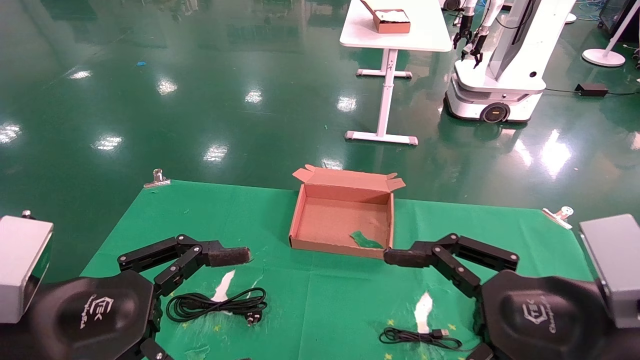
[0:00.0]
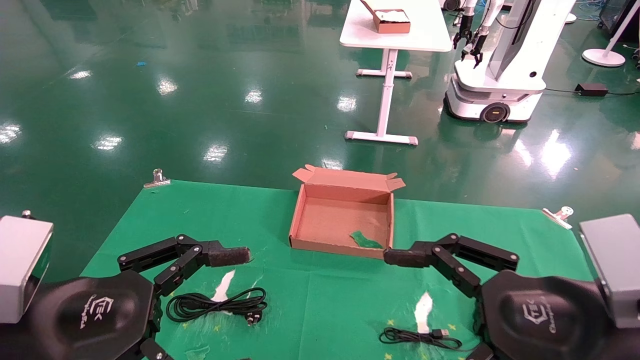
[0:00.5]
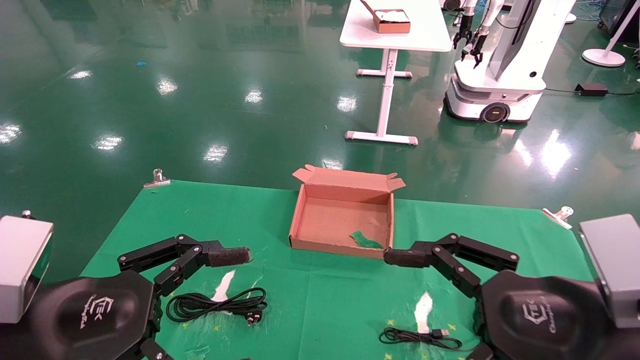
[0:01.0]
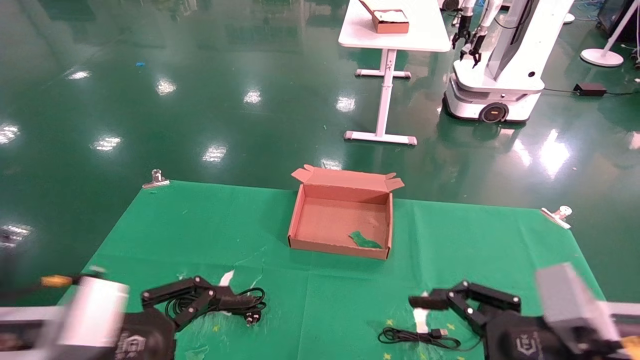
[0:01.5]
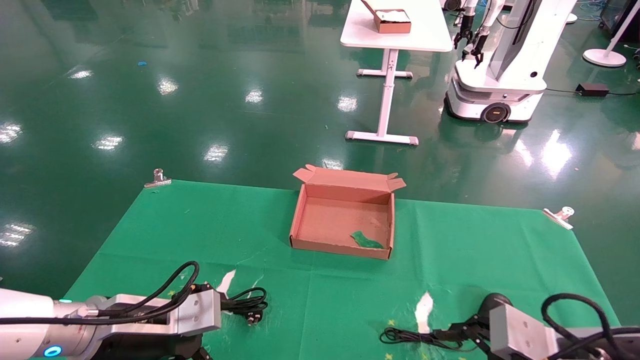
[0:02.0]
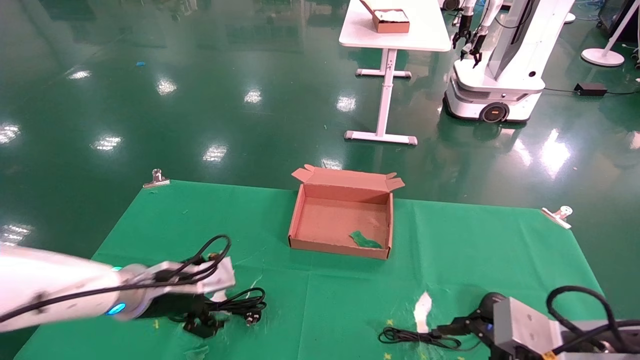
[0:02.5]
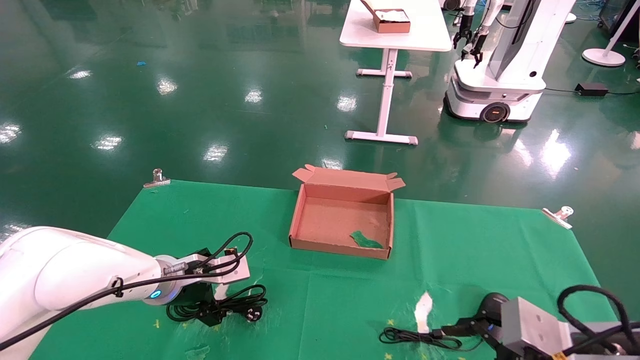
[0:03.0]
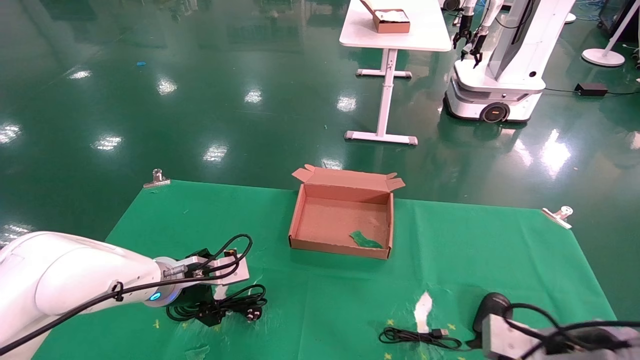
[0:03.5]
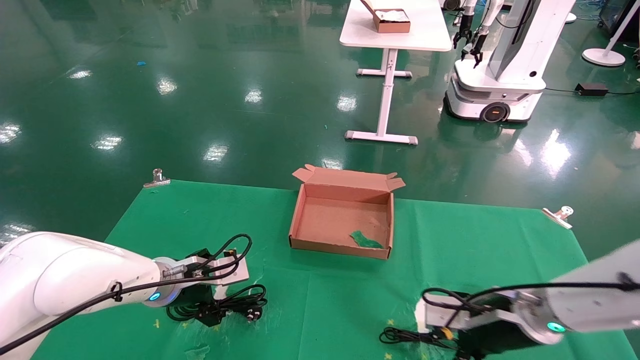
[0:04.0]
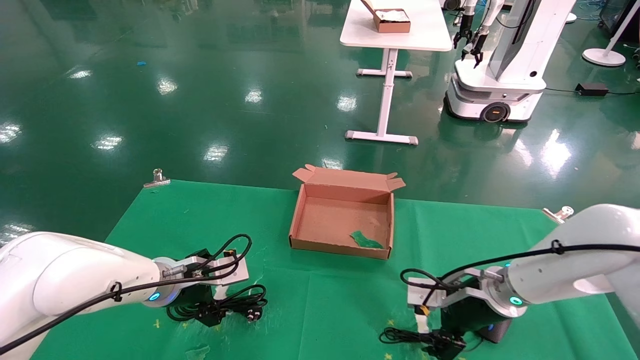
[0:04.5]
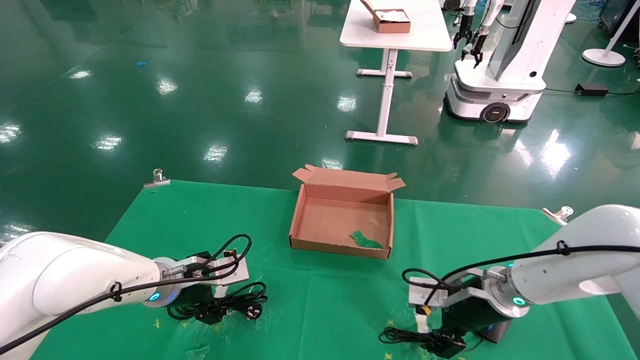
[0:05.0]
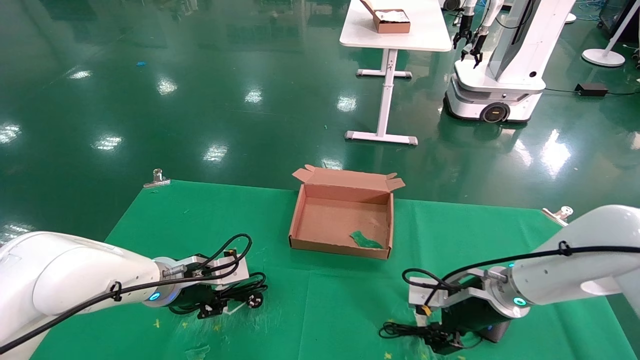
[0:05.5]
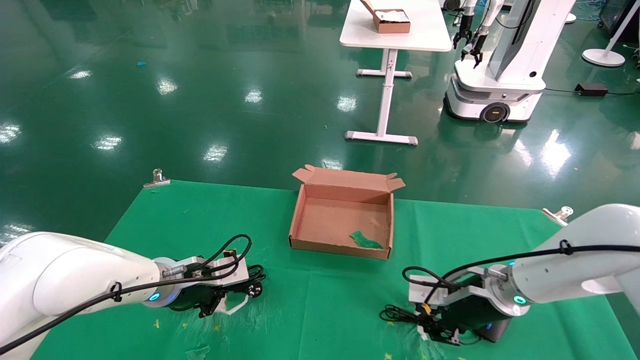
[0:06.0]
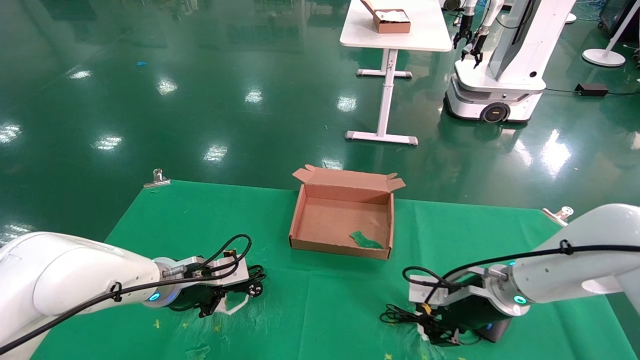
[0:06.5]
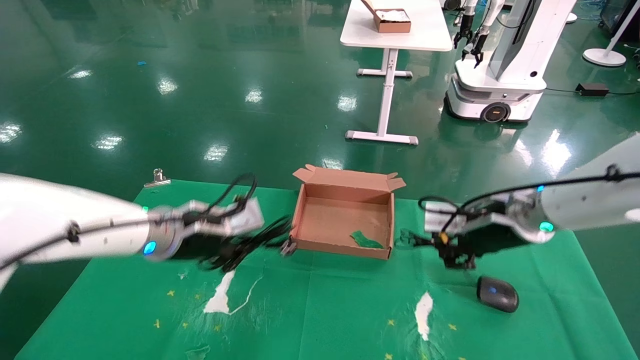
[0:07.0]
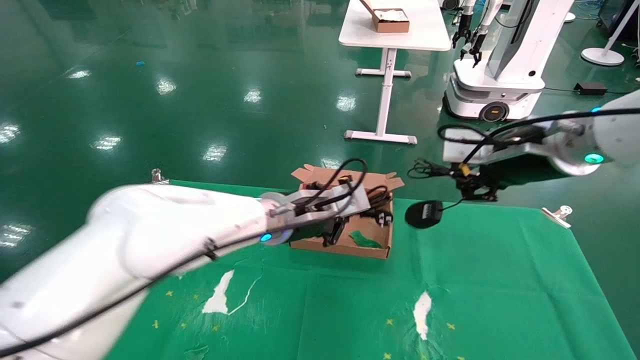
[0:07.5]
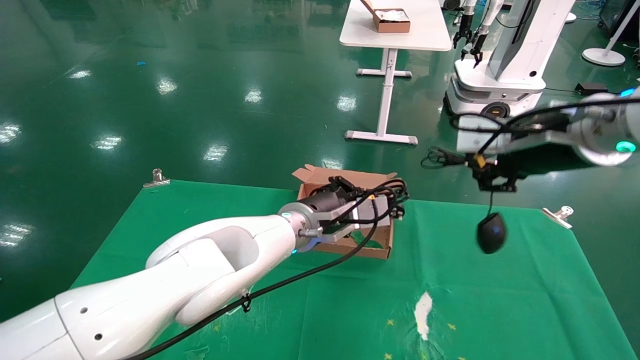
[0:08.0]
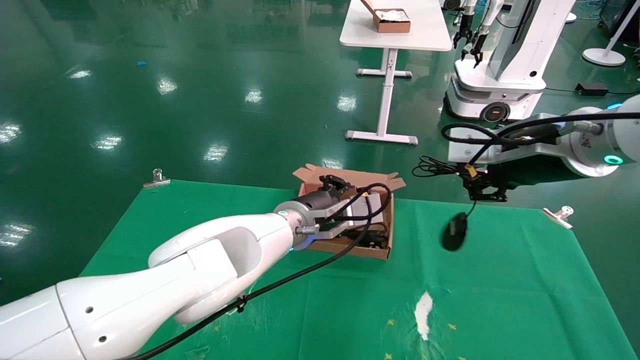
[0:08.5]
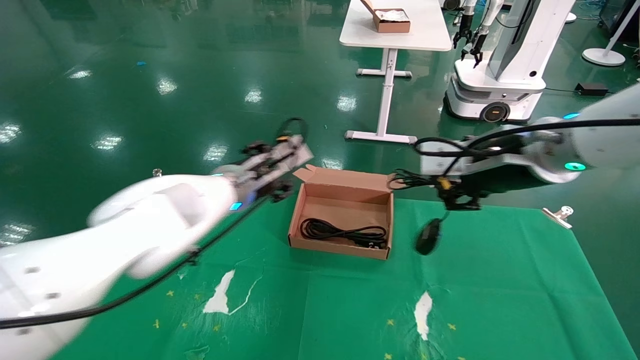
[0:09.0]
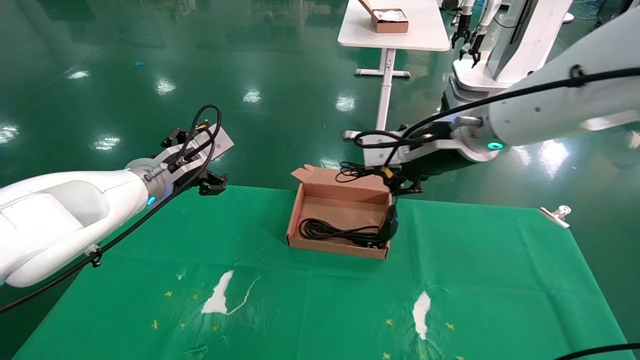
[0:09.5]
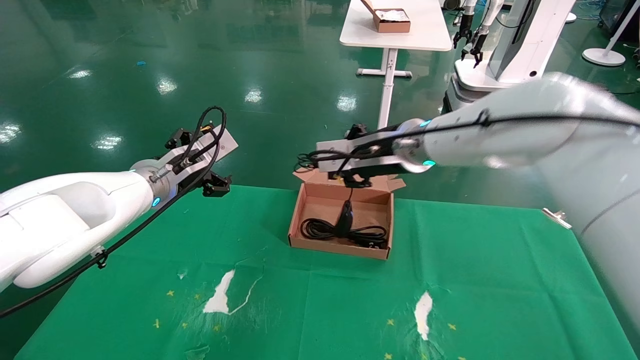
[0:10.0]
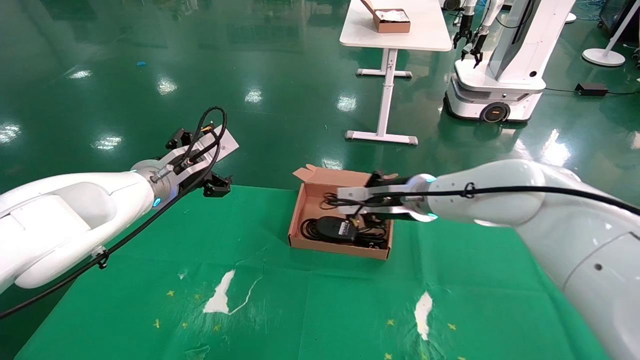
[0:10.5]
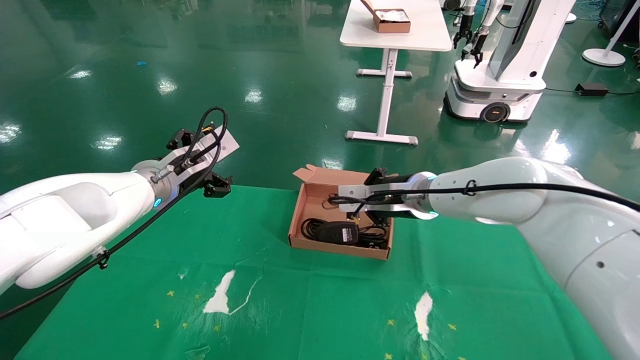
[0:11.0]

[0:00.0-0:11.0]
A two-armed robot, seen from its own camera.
Step, 0:01.5 to 0:06.0: Grab and lift both the mouse and power cord from the accessory packaging area at the same time.
0:00.0 to 0:02.0: The left gripper moves forward and downward, some 15 cm, while the right gripper shifts some 10 cm downward.
0:02.0 to 0:03.5: The left gripper goes some 10 cm forward. Meanwhile the right gripper moves about 5 cm.
0:03.5 to 0:05.5: The left gripper closes; the right gripper goes roughly 15 cm forward and to the left, and closes.
0:05.5 to 0:07.5: The left gripper shifts roughly 20 cm to the right and upward, and closes, while the right gripper moves upward, approximately 20 cm, and closes up.
0:07.5 to 0:09.0: The left gripper shifts approximately 10 cm to the left, and opens.
0:09.0 to 0:11.0: The left gripper heads to the left, covering about 10 cm, and opens up, while the right gripper heads forward, downward and to the left, covering roughly 20 cm.

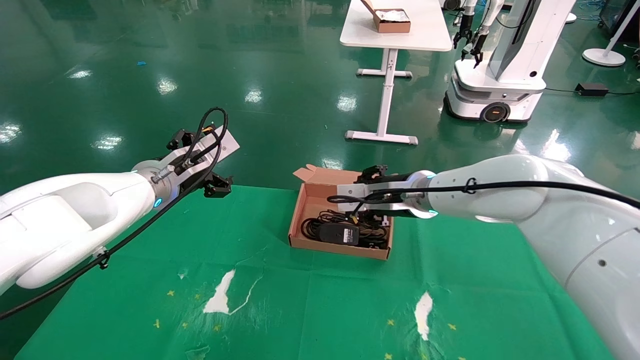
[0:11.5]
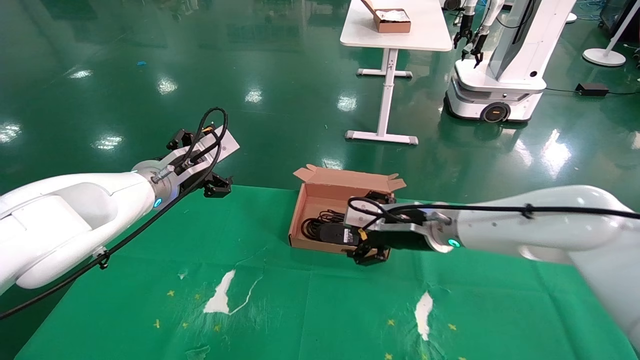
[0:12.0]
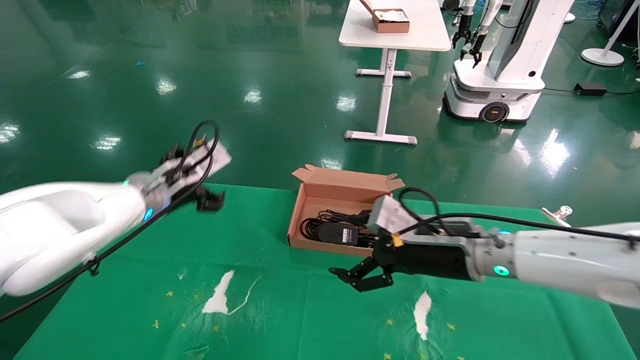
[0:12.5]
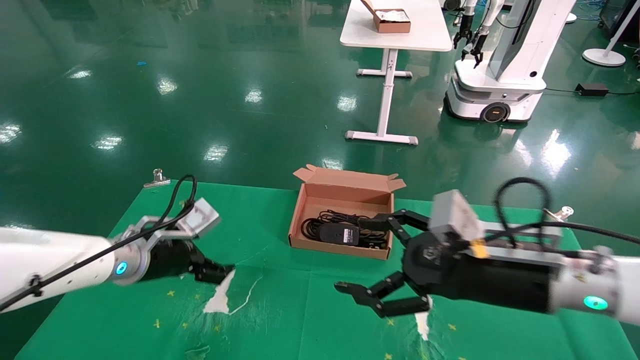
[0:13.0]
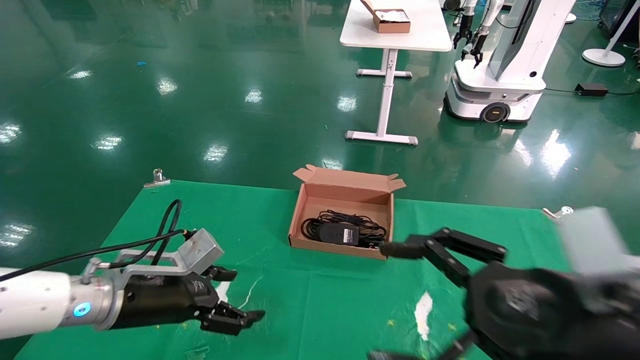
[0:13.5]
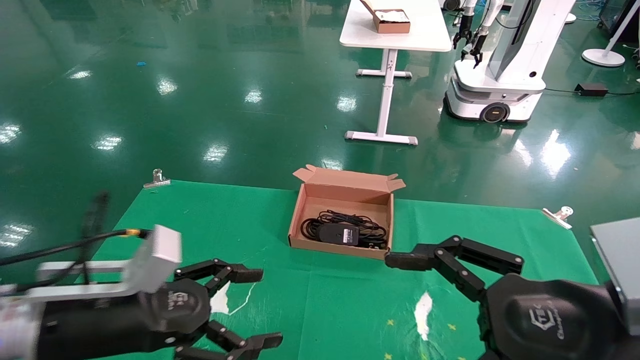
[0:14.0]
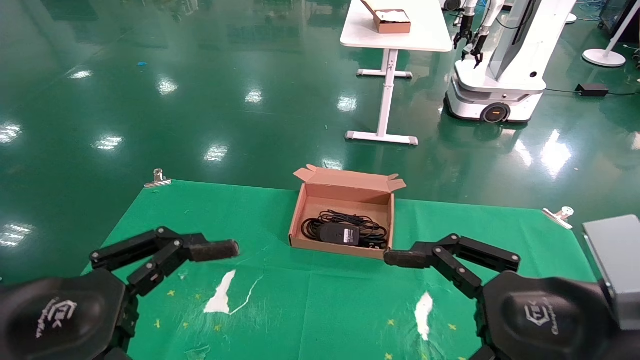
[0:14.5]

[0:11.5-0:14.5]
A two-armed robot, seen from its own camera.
0:11.5 to 0:13.0: The right gripper moves backward and to the right, some 20 cm, and opens. Meanwhile the left gripper shifts about 10 cm downward.
0:13.0 to 0:14.5: The right gripper is displaced backward by roughly 10 cm, while the left gripper moves backward, about 20 cm.

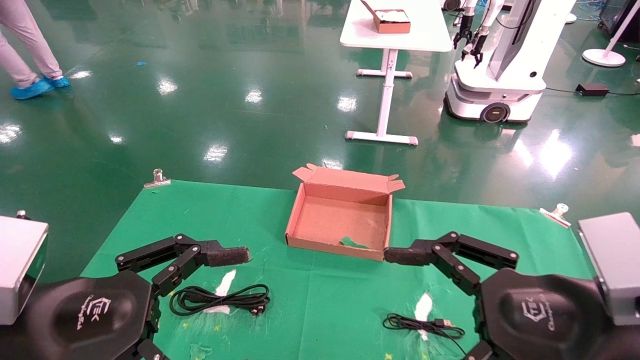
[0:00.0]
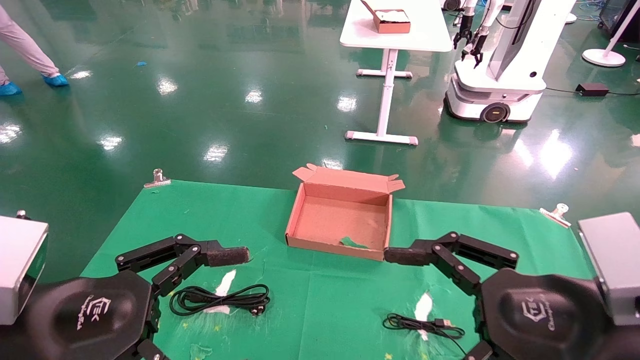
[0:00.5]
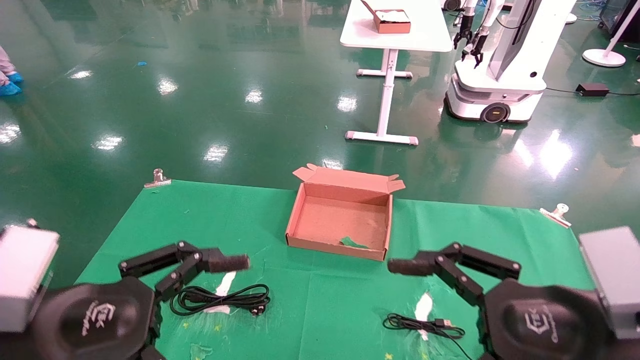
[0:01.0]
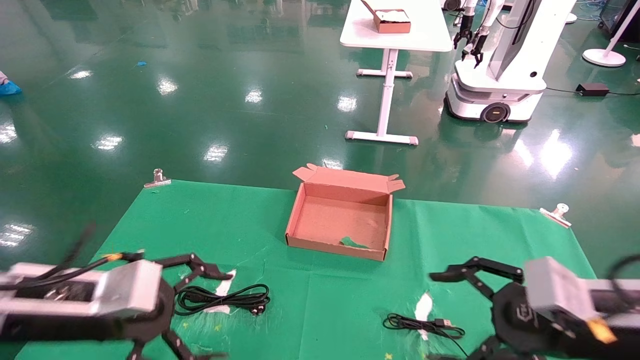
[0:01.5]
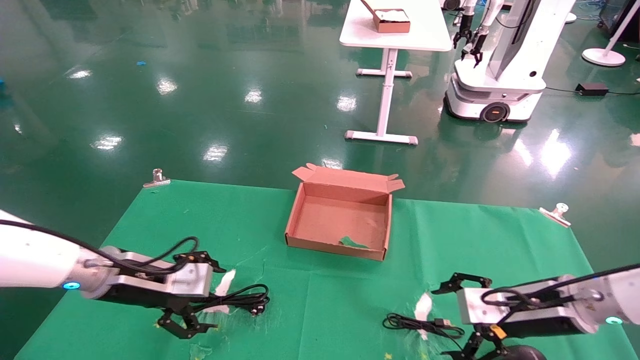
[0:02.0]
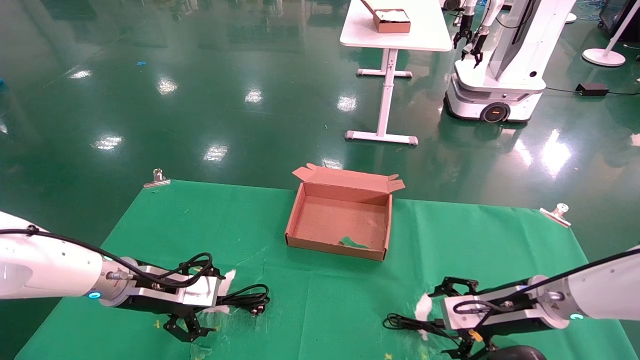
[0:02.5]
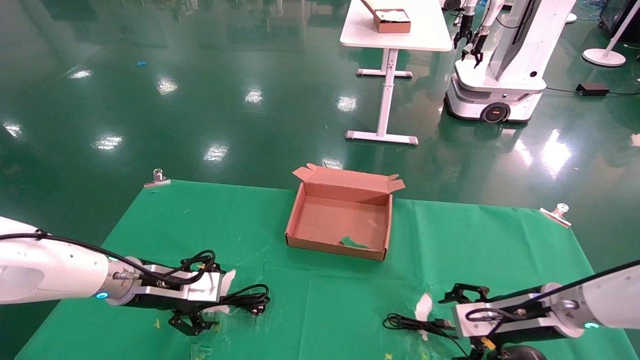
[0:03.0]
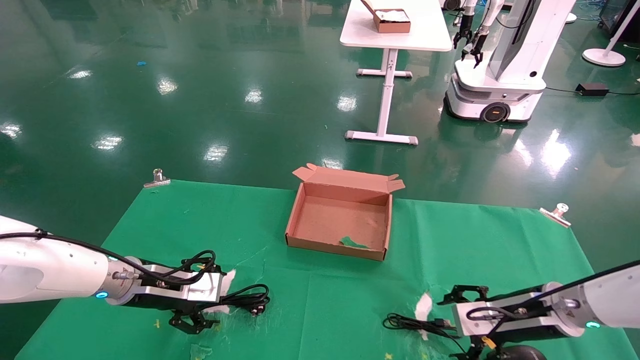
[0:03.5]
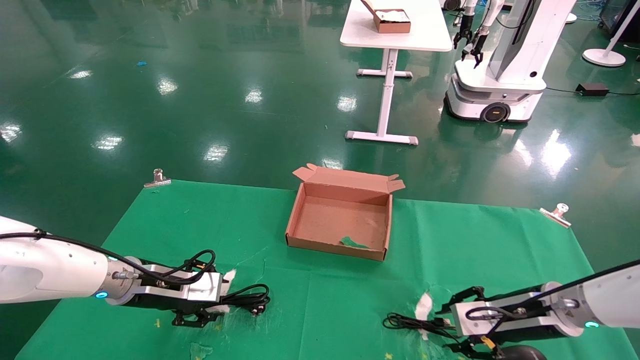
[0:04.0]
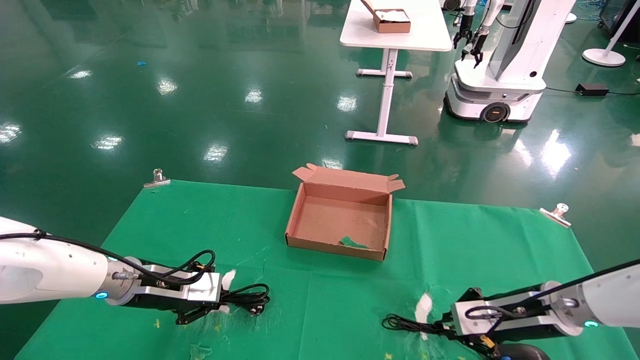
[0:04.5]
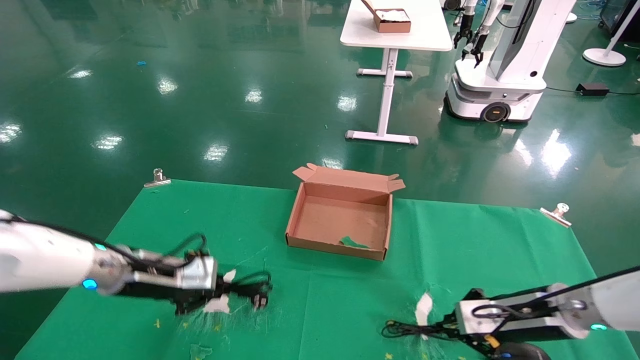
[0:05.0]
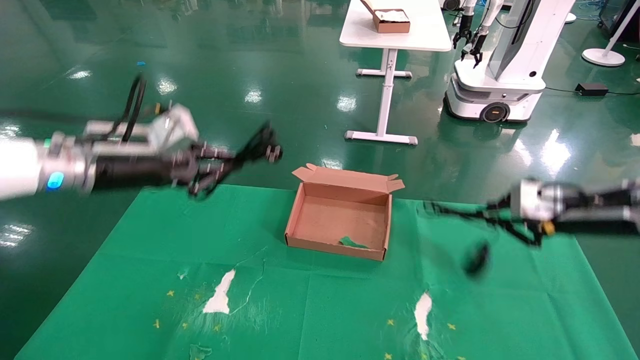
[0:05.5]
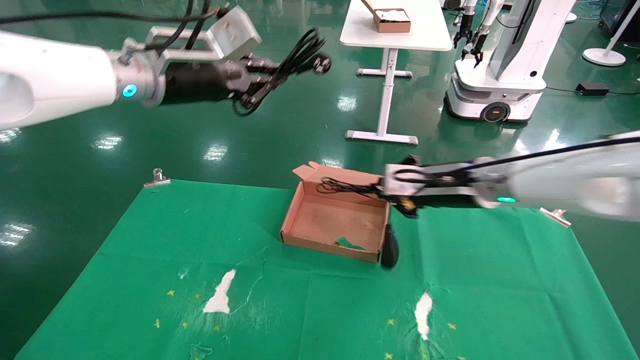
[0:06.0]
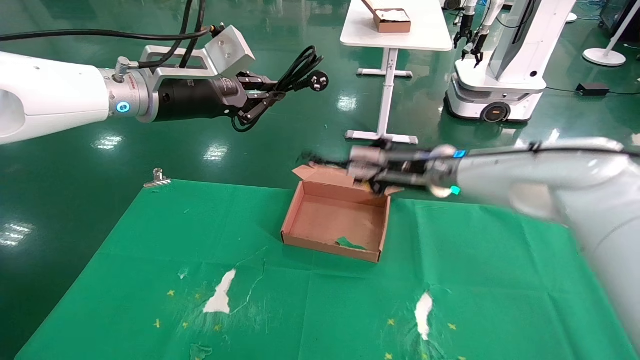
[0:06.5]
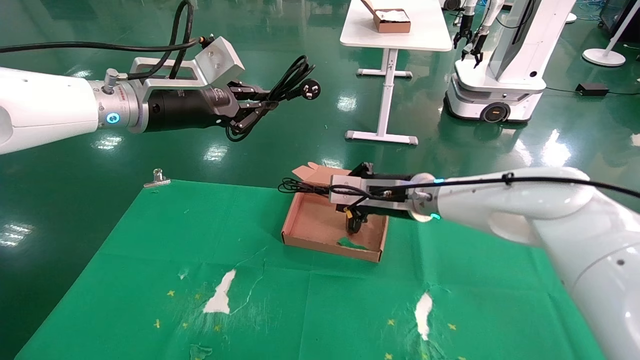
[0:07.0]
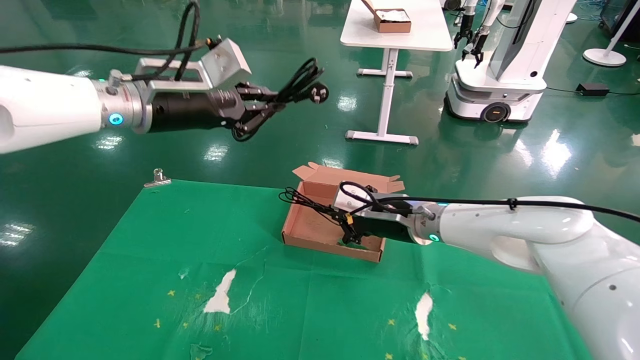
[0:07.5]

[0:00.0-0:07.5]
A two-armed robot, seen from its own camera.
Step, 0:01.5 to 0:05.0: Grab and lift both the mouse and power cord from the accessory packaging area at the same time.
0:00.0 to 0:02.0: The left gripper travels forward by approximately 20 cm. The right gripper travels forward and downward by about 20 cm.
0:02.0 to 0:04.0: The left gripper changes place by about 5 cm, and closes, while the right gripper closes up.
0:04.0 to 0:05.5: Both grippers move upward, about 15 cm. The left gripper closes its fingers; the right gripper closes up.
0:05.5 to 0:07.5: The right gripper travels to the left and forward by some 25 cm; the left gripper travels to the right and upward by roughly 10 cm.
